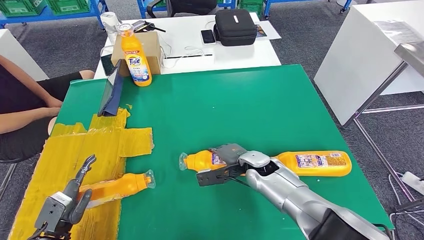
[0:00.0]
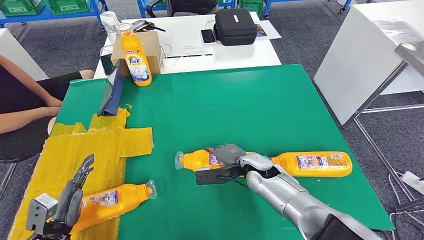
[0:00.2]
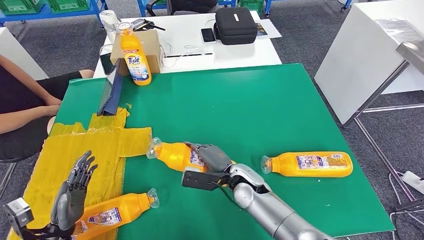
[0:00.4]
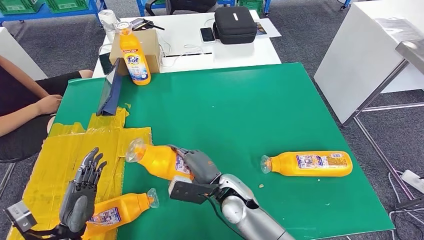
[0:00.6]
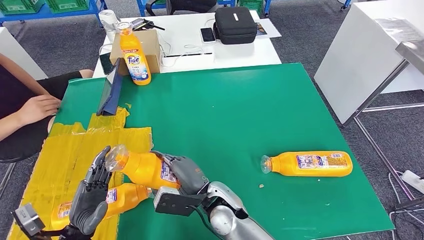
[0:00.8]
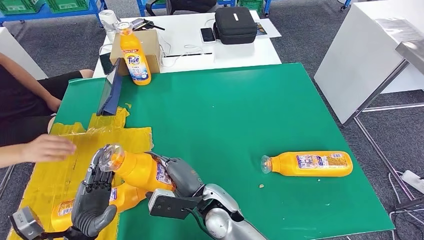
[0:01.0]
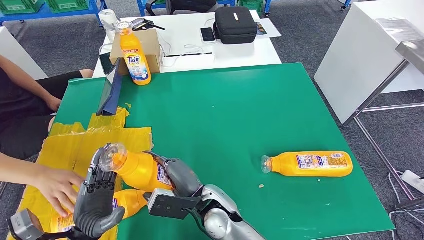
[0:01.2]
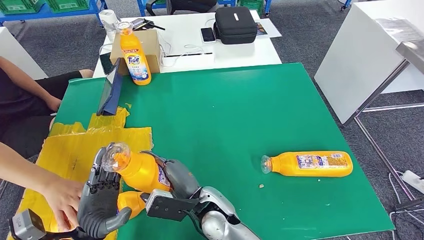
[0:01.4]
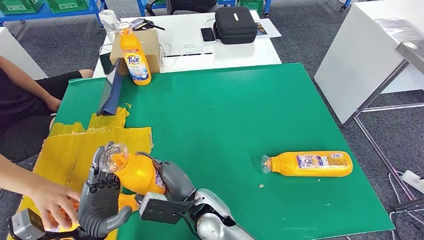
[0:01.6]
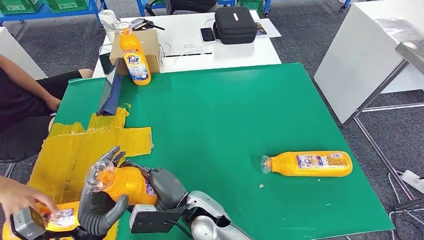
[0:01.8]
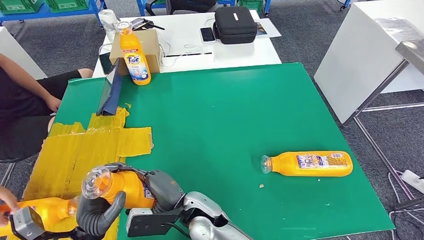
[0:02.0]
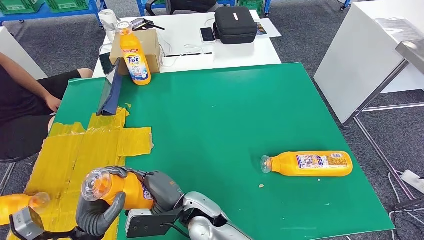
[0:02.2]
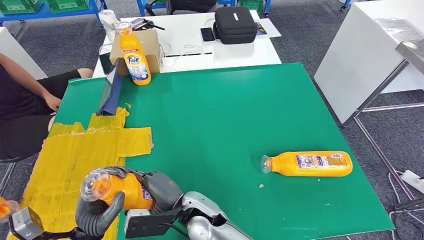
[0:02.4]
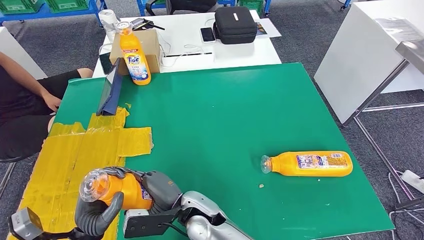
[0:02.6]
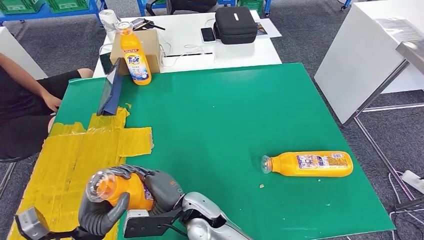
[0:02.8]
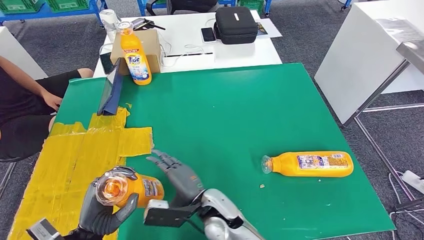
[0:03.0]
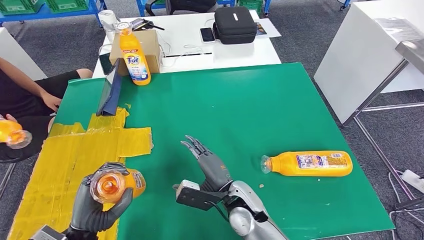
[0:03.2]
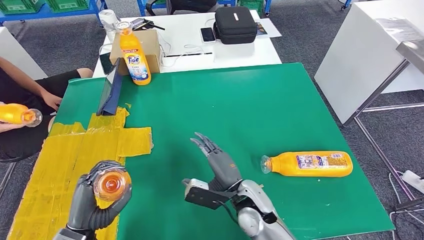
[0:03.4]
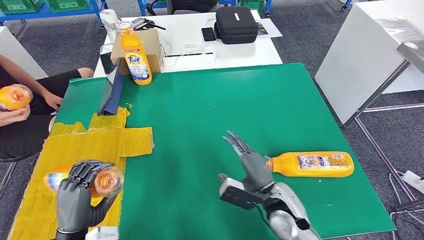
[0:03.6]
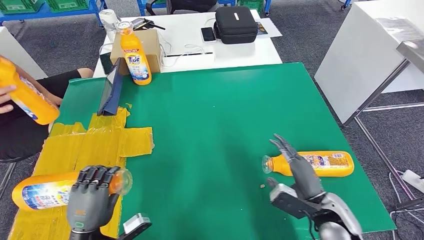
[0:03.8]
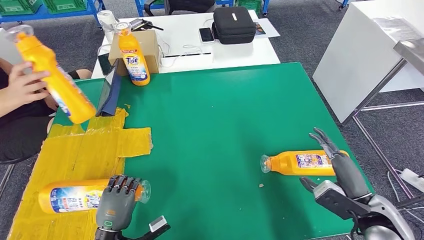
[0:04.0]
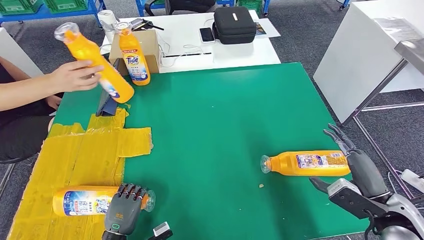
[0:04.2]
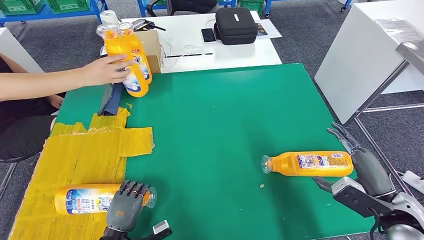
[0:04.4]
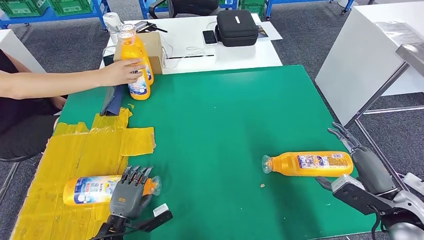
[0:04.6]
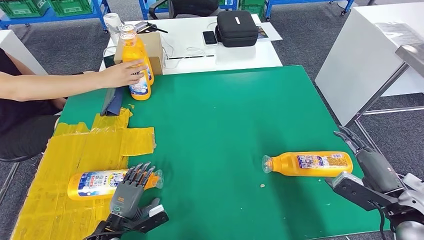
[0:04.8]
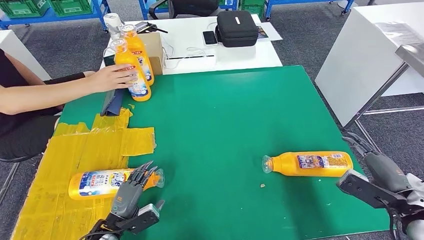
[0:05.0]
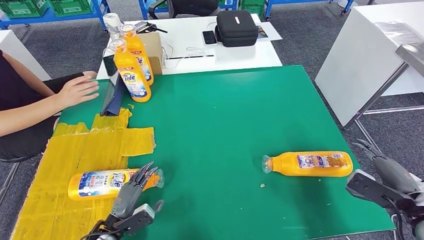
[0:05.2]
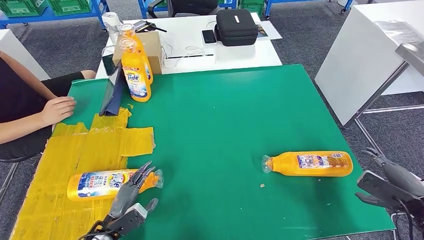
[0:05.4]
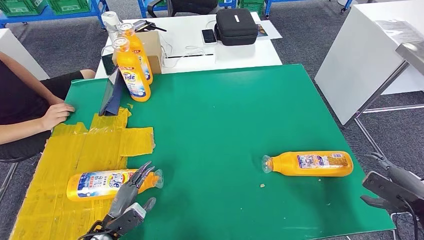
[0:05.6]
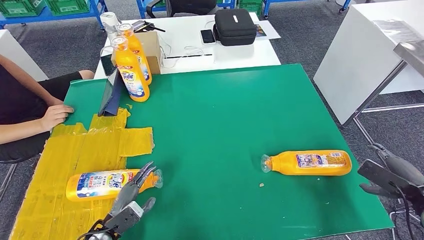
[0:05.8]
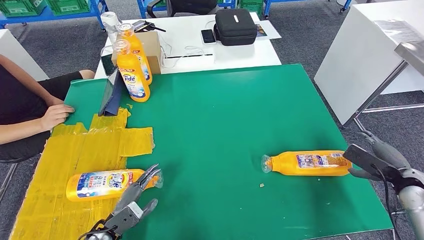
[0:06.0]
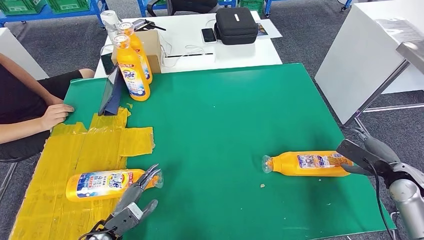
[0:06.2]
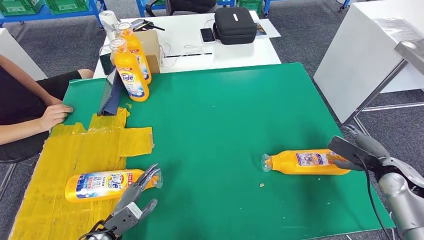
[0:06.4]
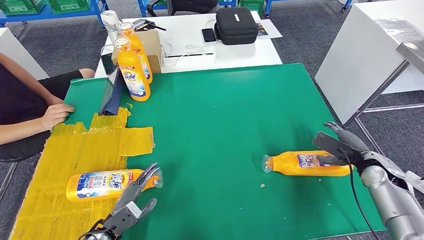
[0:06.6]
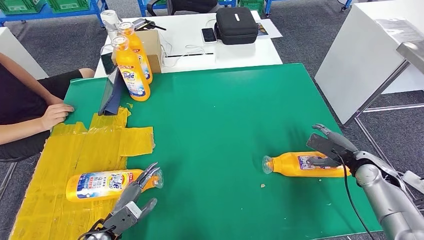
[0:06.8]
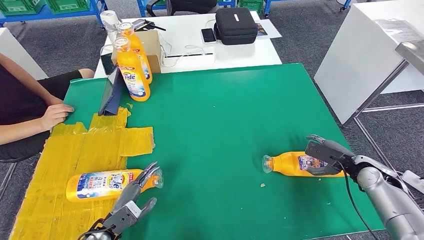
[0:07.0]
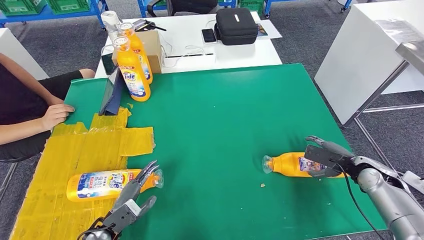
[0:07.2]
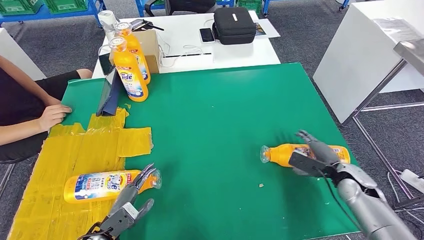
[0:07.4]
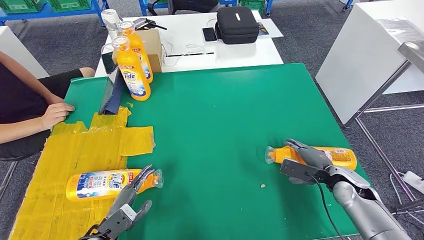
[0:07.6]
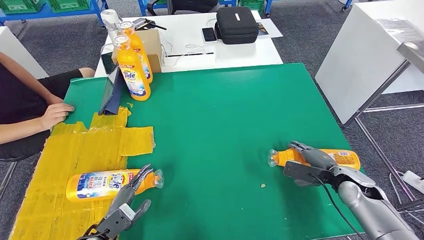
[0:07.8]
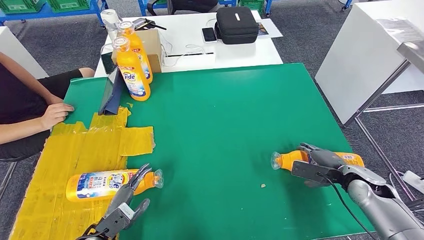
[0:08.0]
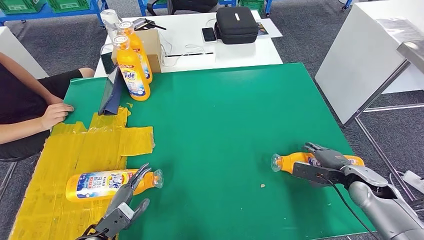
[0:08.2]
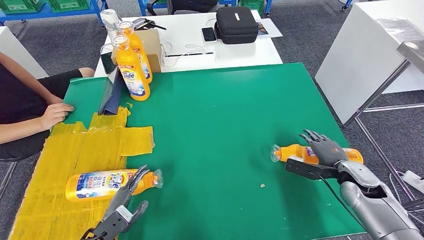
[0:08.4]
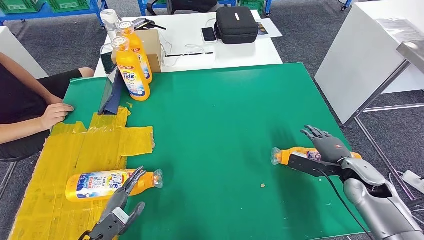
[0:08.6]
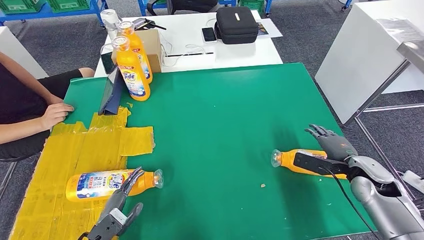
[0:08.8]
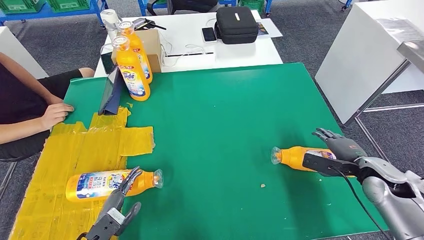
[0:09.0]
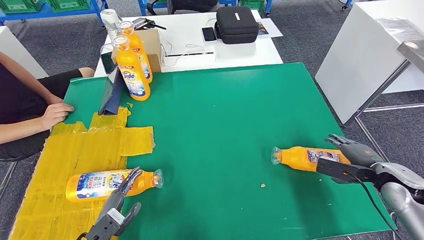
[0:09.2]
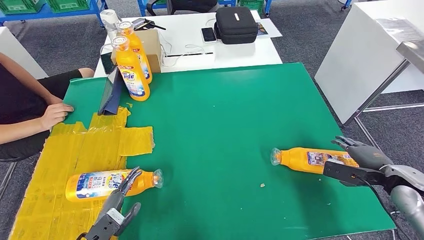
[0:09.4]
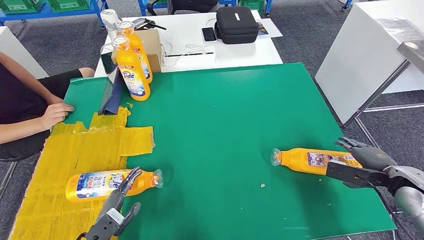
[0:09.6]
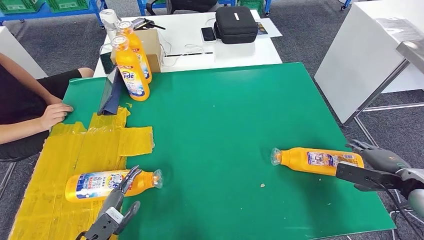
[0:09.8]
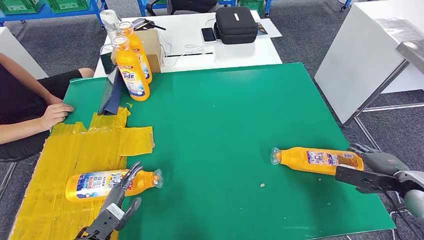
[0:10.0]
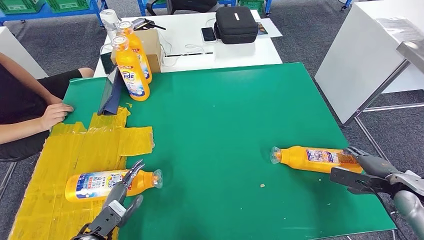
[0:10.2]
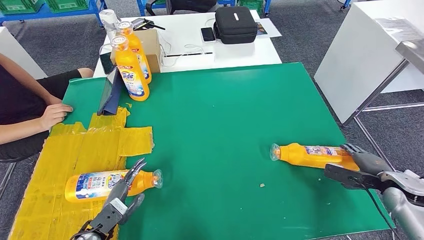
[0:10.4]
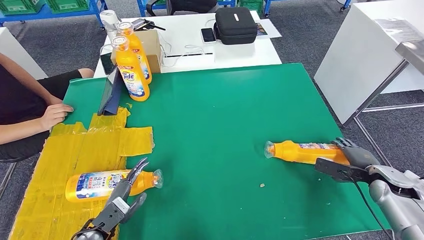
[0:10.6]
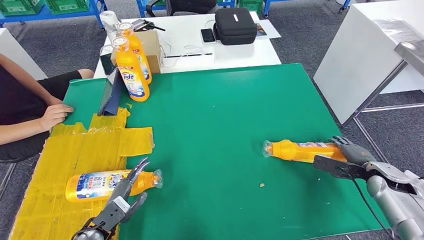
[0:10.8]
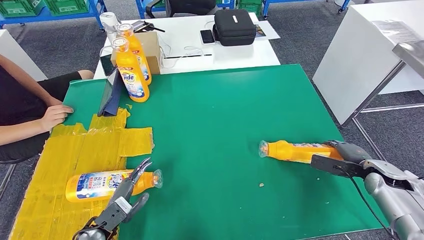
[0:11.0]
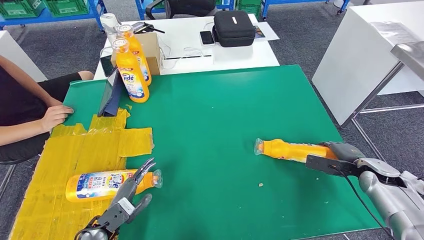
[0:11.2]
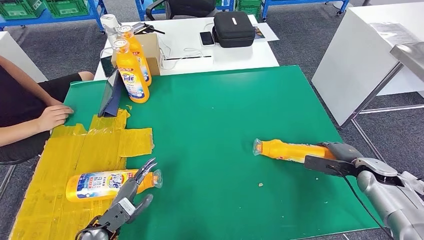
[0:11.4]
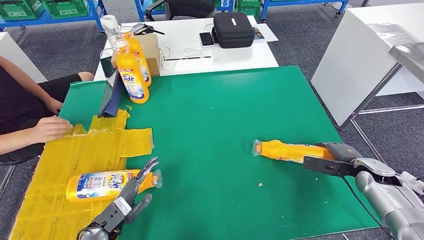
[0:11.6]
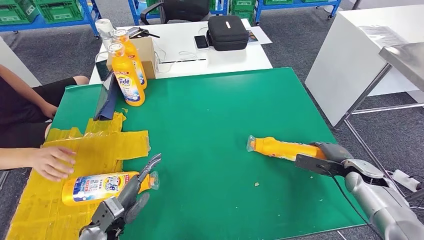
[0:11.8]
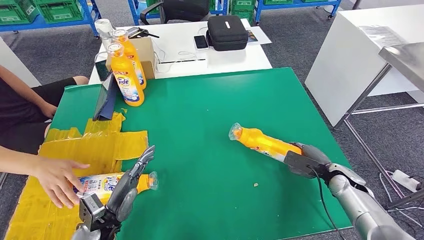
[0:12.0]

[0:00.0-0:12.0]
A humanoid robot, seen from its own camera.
Step, 0:00.6 to 0:03.0: Pick up the fast-moving consumer goods bottle from the table.
Step, 0:03.2 to 0:05.6: Flip the fast-moving consumer goods bottle to the front side.
0:06.0 to 0:07.6: The right hand travels to the left and downward by about 15 cm.
0:07.6 to 0:09.0: The right hand is displaced upward by roughly 5 cm.
0:09.0 to 0:10.4: The right hand is displaced to the right by roughly 5 cm.

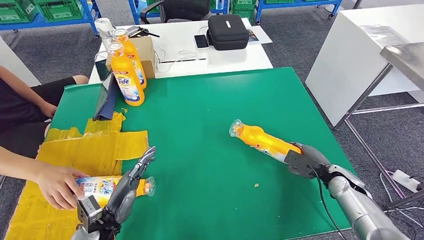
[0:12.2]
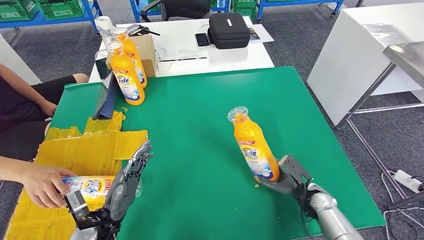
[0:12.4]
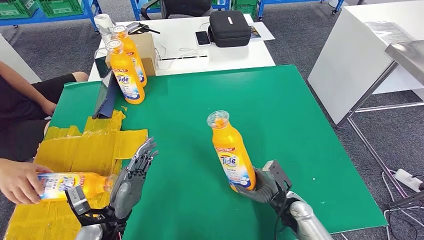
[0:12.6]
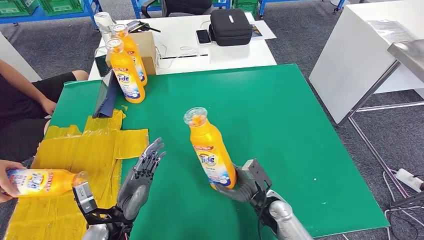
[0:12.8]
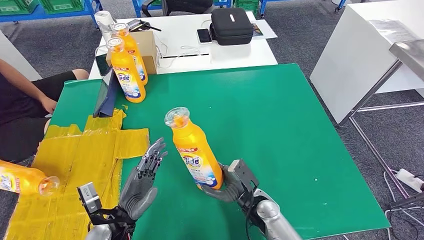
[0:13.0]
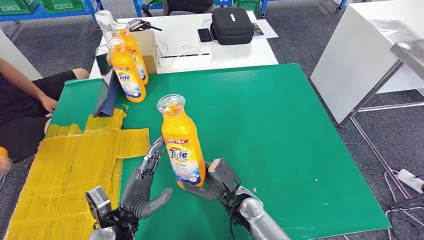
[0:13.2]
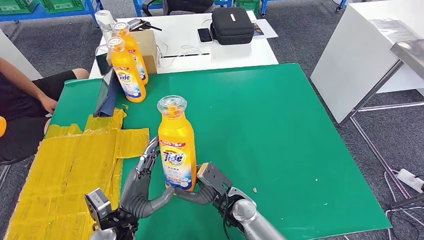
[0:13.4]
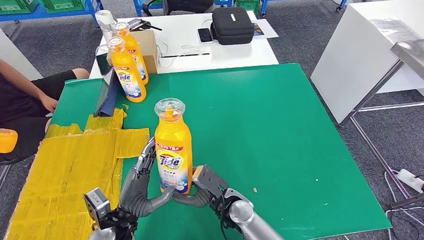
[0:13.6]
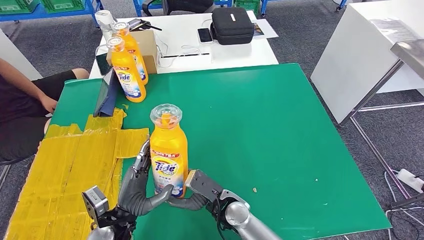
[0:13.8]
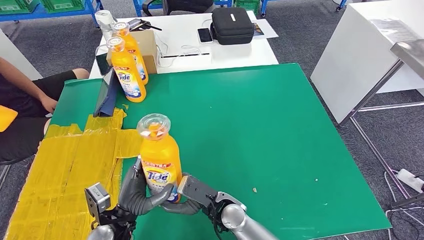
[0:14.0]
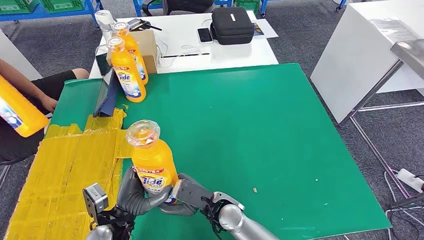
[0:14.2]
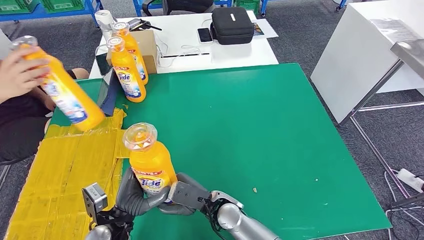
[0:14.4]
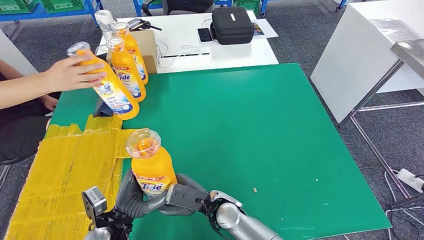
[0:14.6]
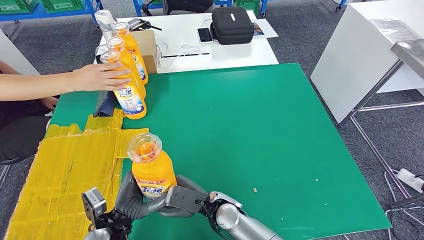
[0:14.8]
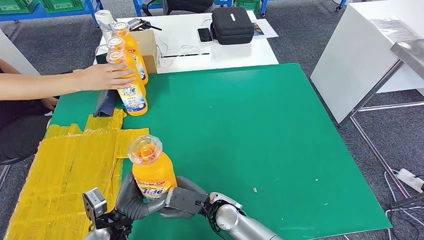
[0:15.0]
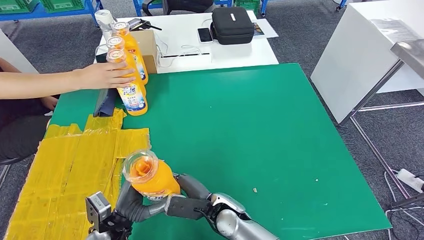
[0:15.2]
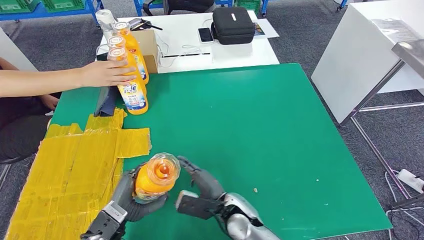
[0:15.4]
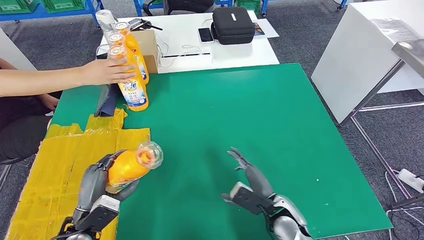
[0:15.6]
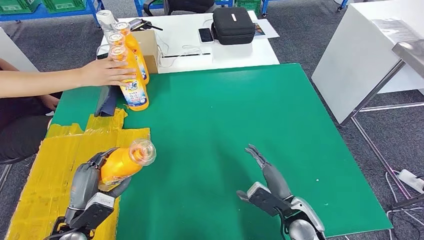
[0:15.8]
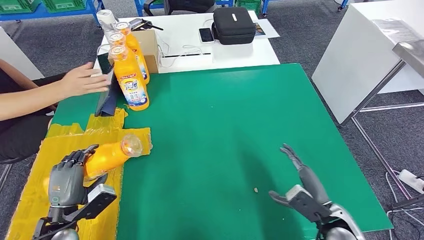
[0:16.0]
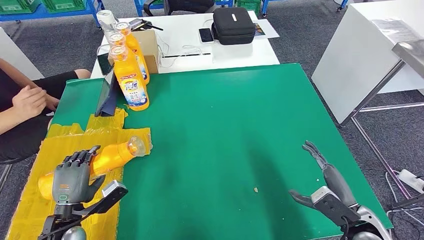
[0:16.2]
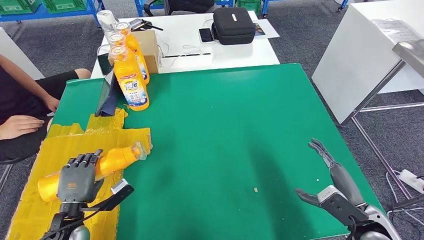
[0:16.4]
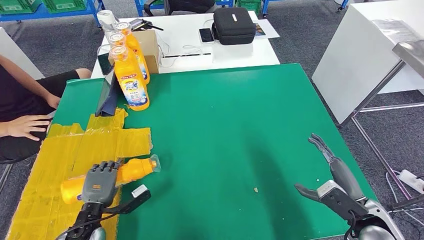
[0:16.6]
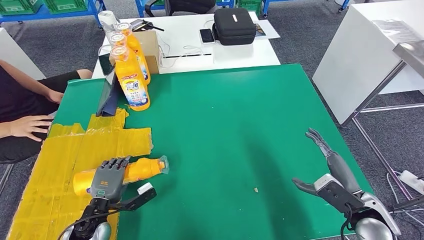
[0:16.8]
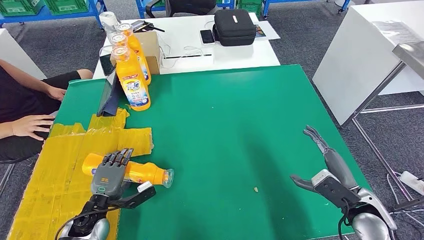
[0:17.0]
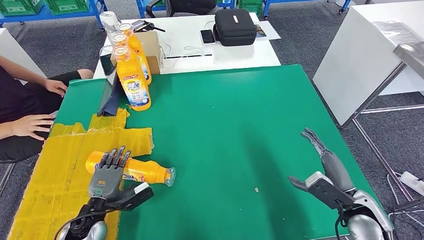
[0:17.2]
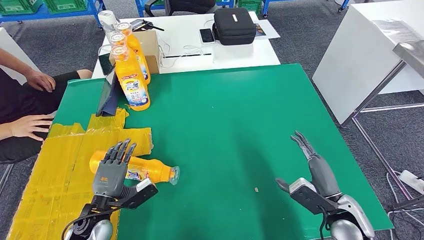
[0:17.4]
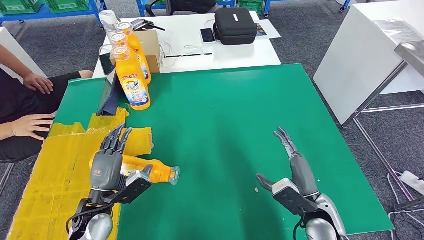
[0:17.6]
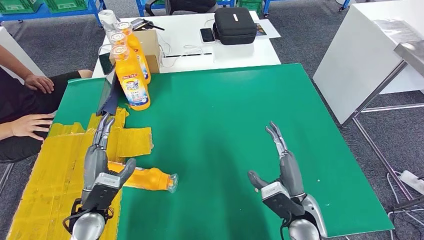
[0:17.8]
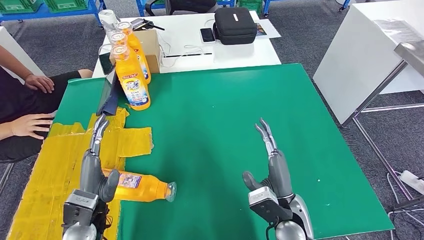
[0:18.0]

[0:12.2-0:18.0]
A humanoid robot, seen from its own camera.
Step, 0:12.2 to 0:15.4: Pick up the fast-moving consumer goods bottle from the table.
Step, 0:15.8 to 0:18.0: Flip the fast-moving consumer goods bottle to the front side.
0:13.6 to 0:15.0: The hands make only small movements.
